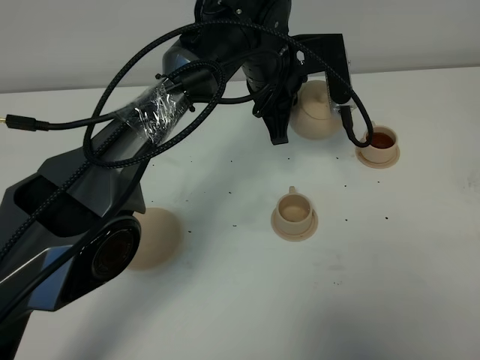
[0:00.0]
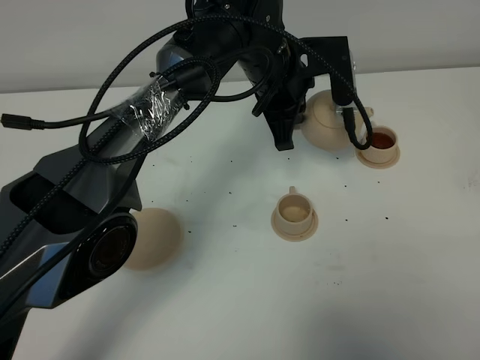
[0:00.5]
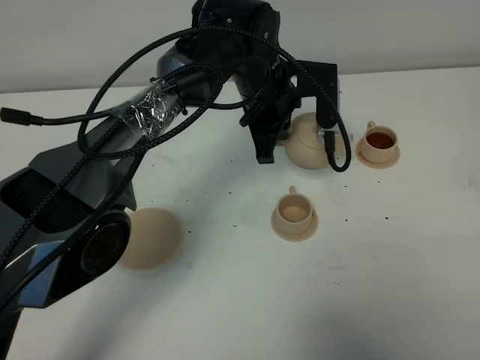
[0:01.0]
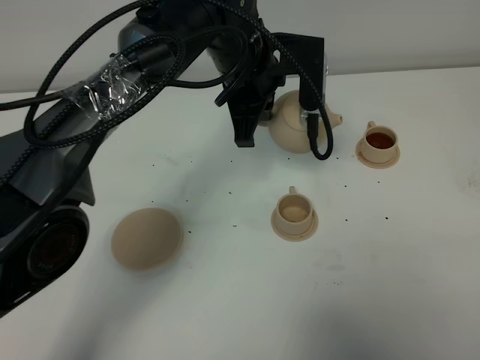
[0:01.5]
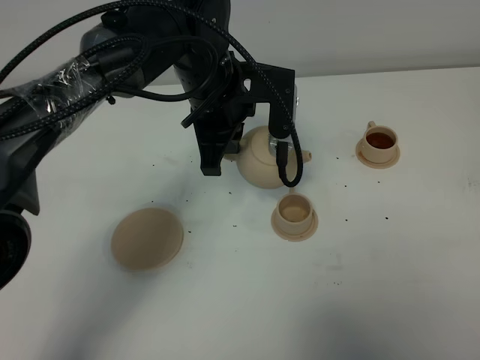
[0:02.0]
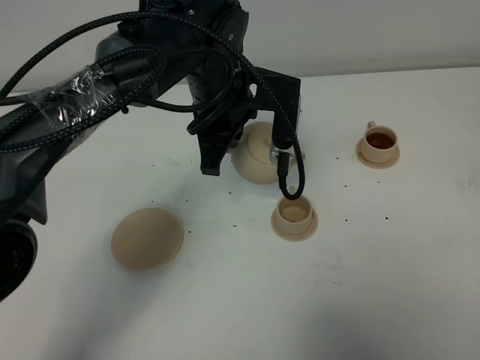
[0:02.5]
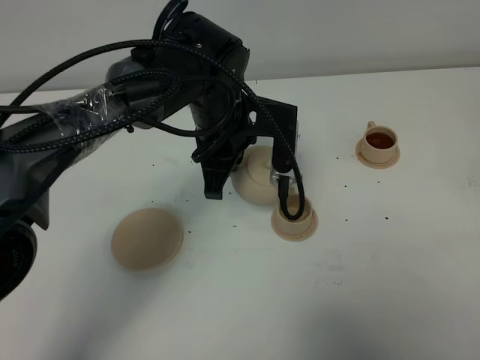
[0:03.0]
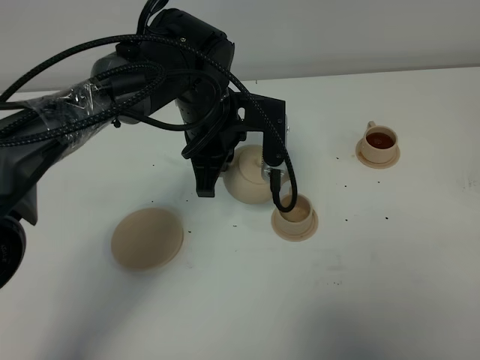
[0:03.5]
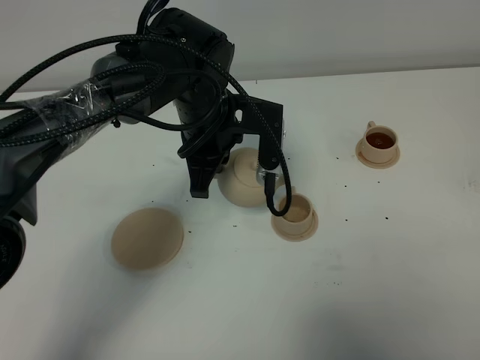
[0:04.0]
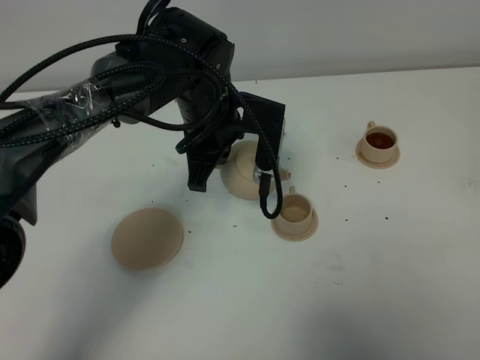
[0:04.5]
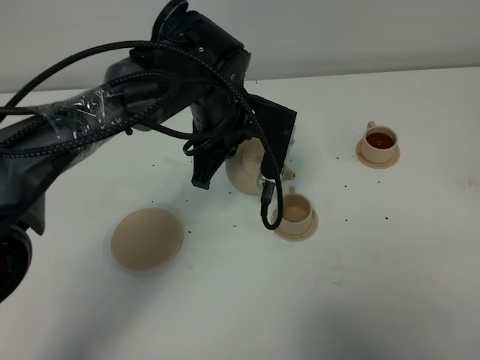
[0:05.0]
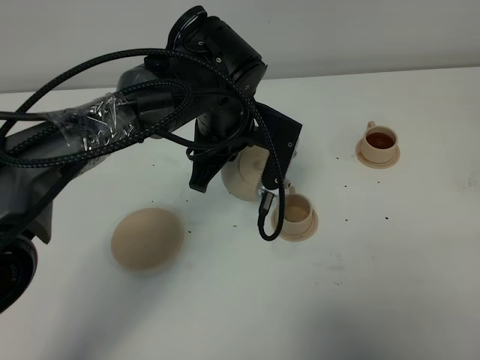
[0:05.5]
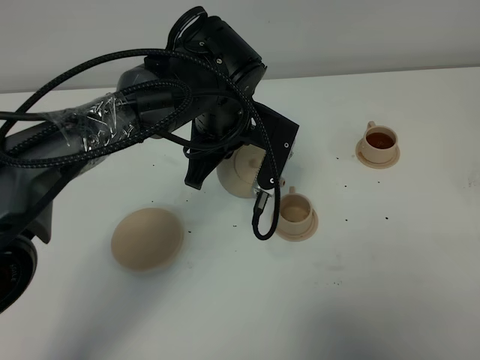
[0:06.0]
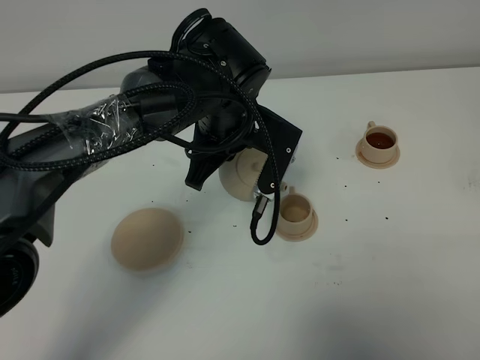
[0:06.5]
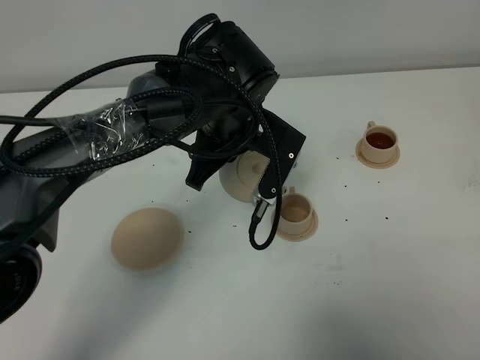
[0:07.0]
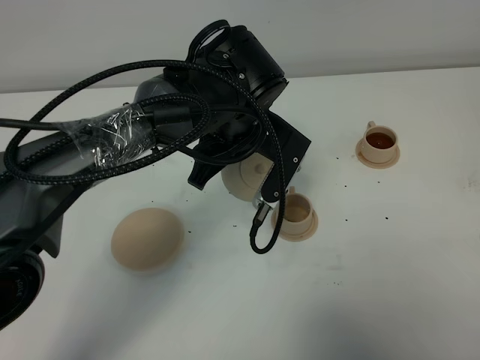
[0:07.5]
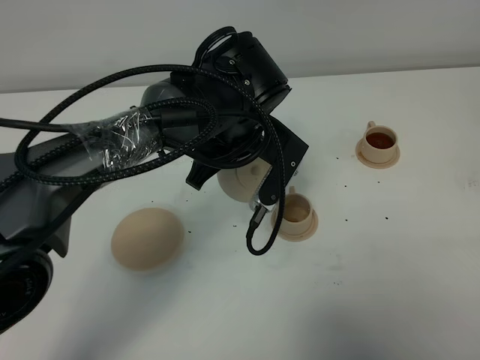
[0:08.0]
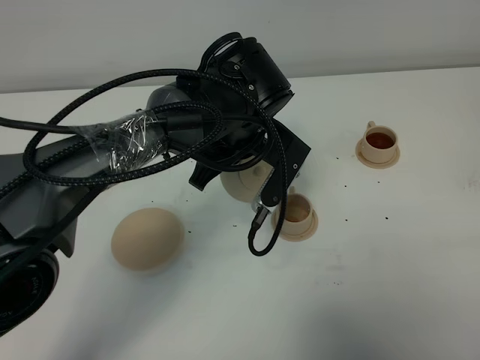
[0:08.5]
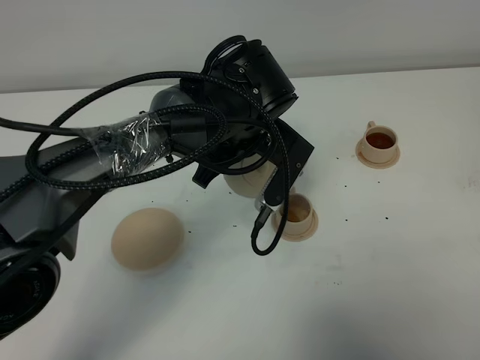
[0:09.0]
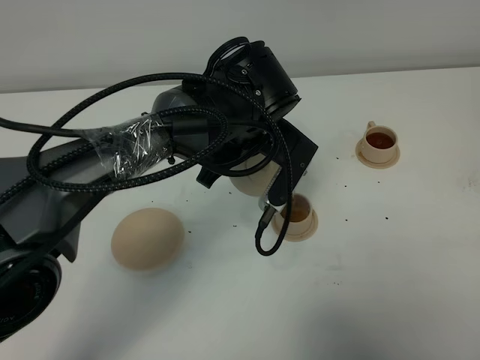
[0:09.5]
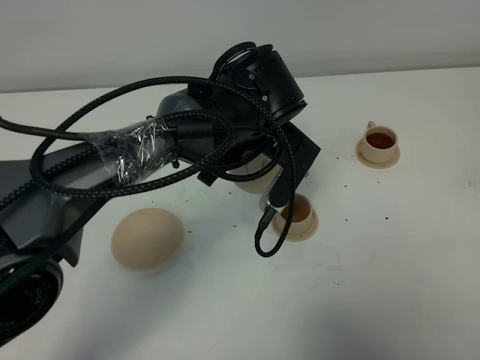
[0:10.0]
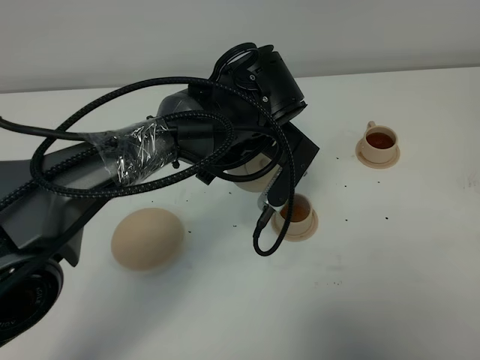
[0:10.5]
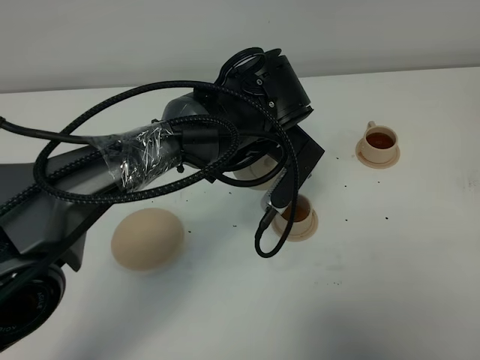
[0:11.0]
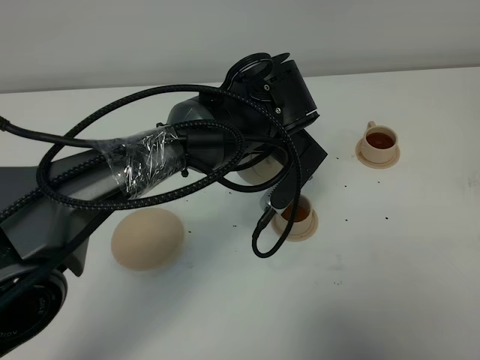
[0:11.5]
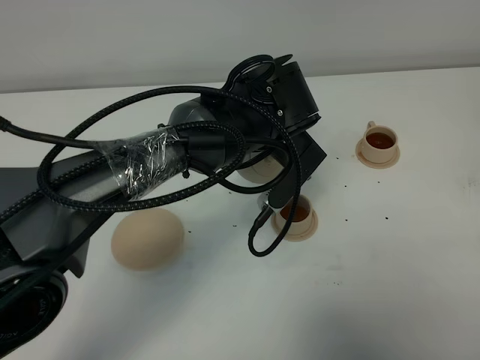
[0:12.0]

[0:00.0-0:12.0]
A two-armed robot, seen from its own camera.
Task of the whole recording: grasp the brown teapot and pour the tea into the two brown teacups one by one, put the brown teapot back in its original place.
0:00.0 to 0:02.0: The left gripper goes approximately 10 cm to the left and backward.
0:02.0 to 0:04.0: The grippers stay close to where they were, moving slightly.
0:06.0 to 0:10.0: The grippers move only a little.
0:10.0 to 0:12.0: The grippers make only small movements.

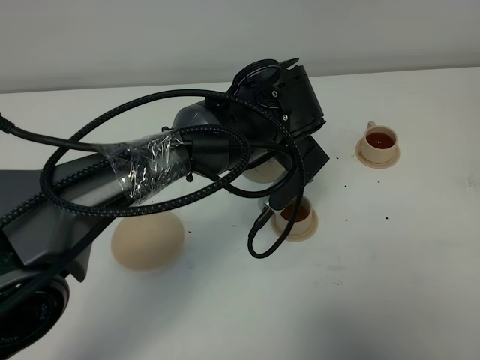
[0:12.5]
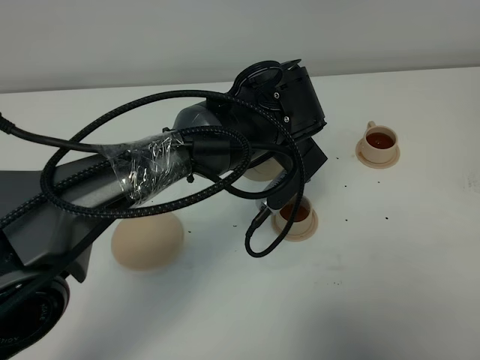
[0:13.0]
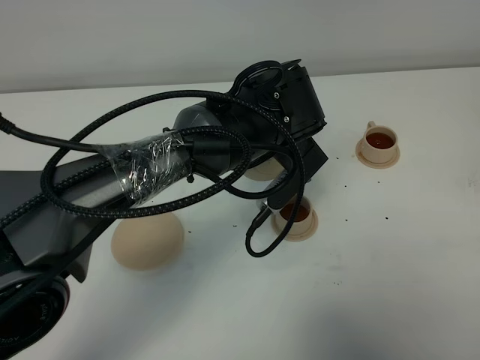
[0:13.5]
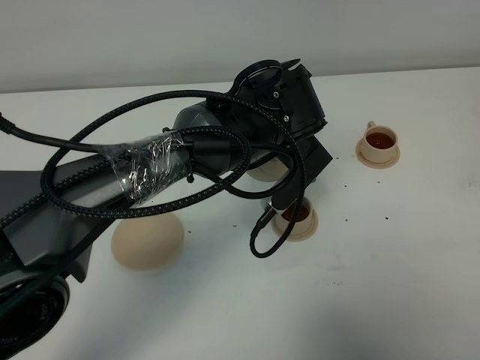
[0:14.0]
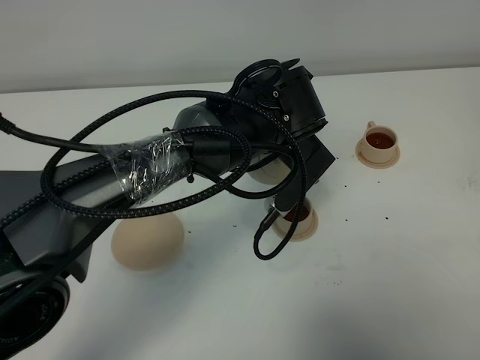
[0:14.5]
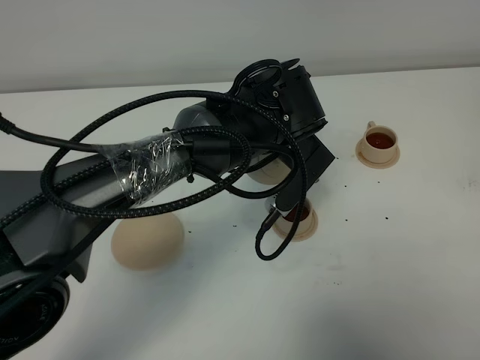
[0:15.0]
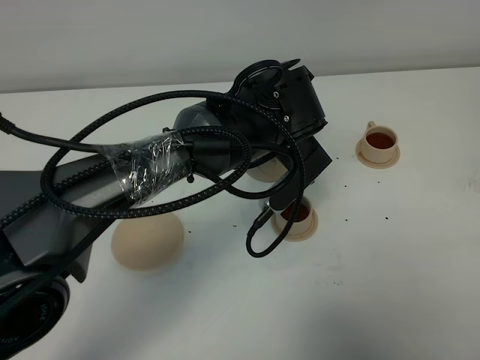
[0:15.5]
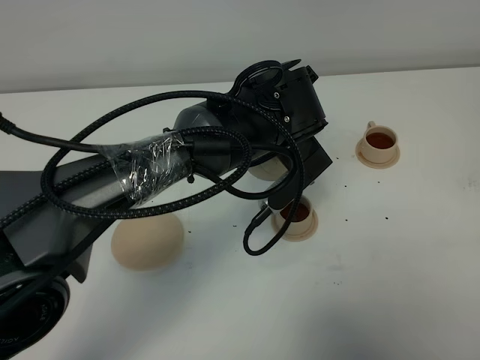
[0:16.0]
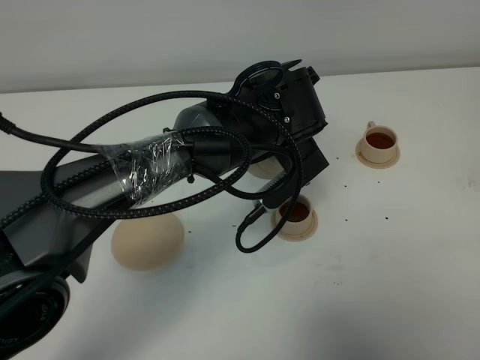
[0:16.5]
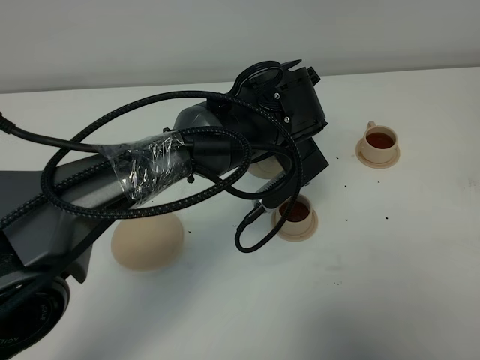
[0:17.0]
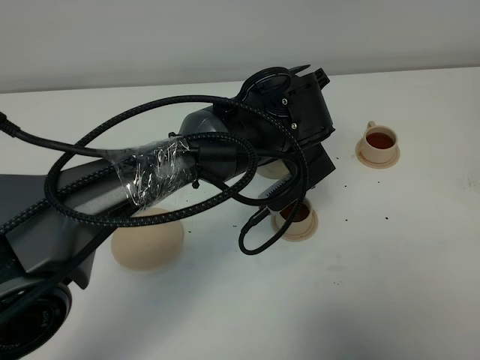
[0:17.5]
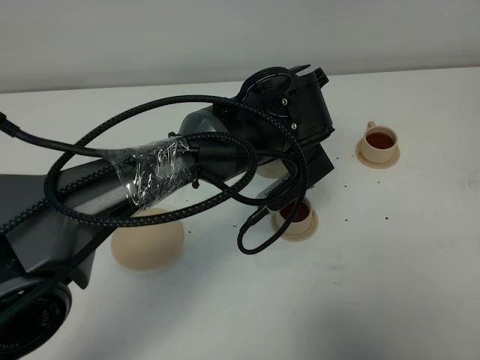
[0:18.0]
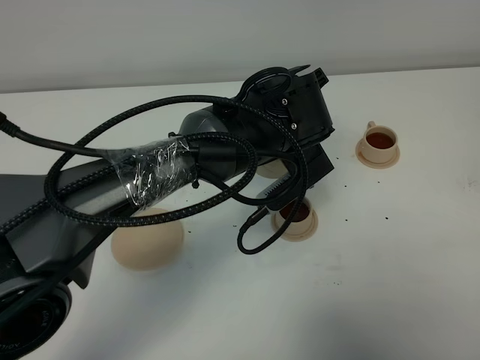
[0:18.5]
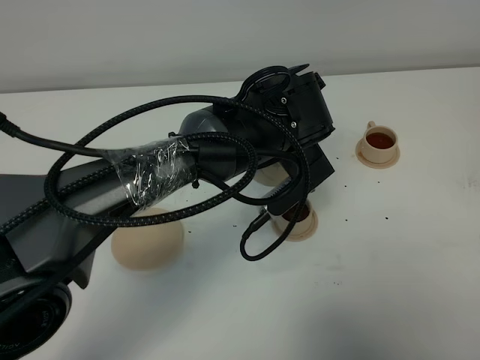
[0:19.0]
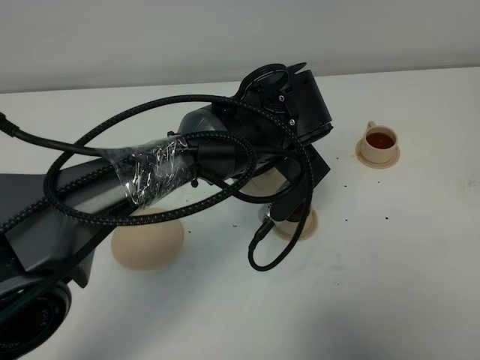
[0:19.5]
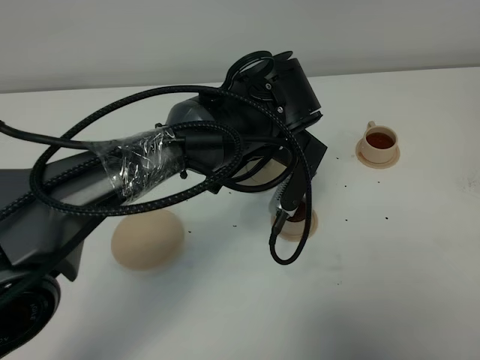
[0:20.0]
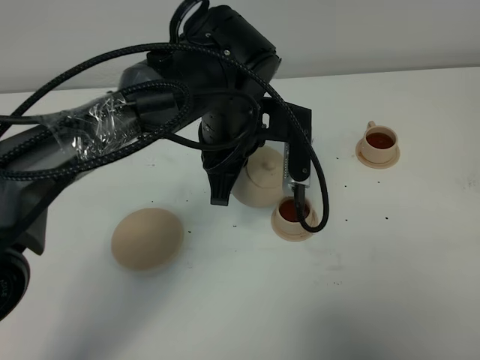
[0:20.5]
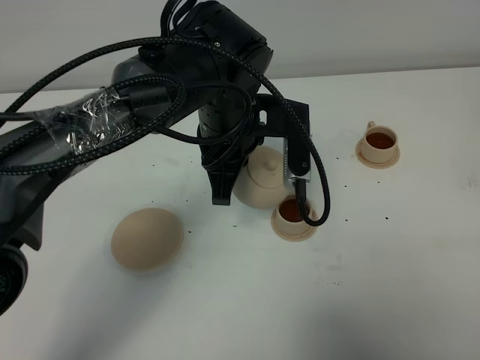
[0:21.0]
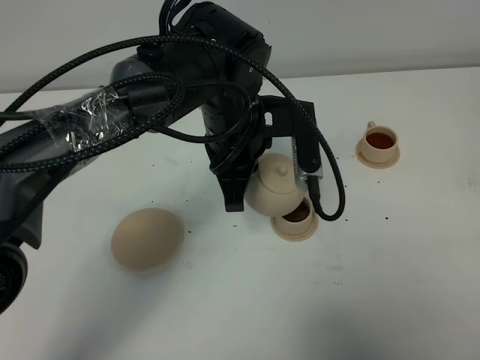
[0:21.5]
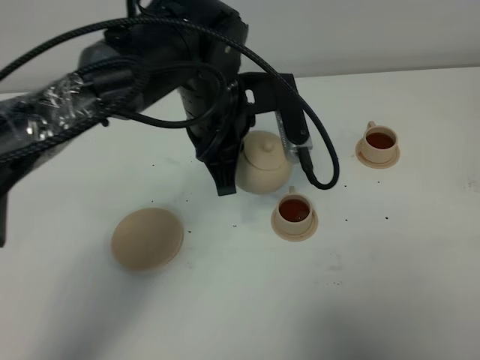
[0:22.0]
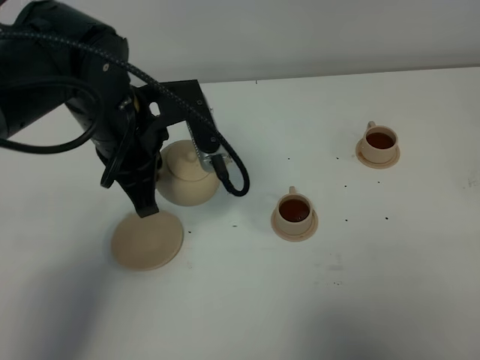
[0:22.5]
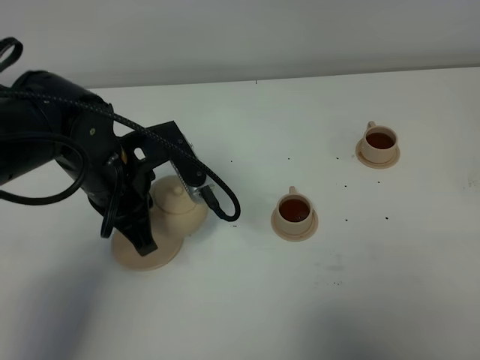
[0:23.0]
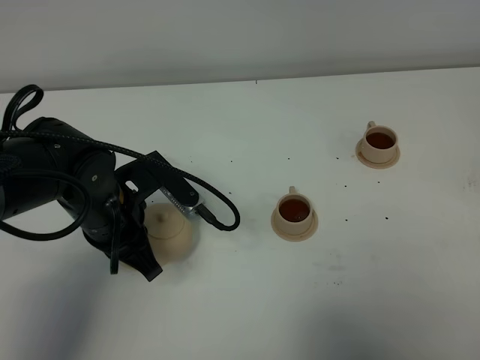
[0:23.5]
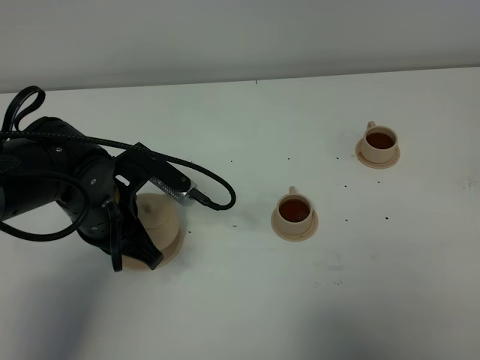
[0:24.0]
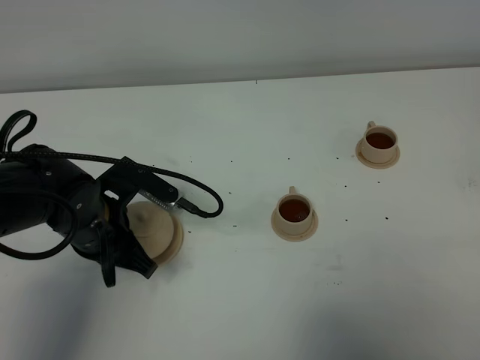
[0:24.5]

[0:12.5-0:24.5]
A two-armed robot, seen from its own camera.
Task of the whole recording: grasp the brown teapot and pour the tea into the two brown teacups one by one, put the brown teapot back in its original place.
Step, 0:12.5 to 0:20.0: Pour tea into the teacup with the left gripper.
0:12.5 to 0:14.5: Neither gripper changes place.
0:14.5 to 0:16.5: The grippers stay close to where they were, moving slightly.
0:16.5 to 0:18.5: The two grippers keep their place.
0:18.5 to 0:20.5: The left gripper goes approximately 5 cm to the left.
0:20.5 to 0:22.5: The left gripper is displaced to the left by approximately 10 cm.
0:22.5 to 0:24.5: The left gripper heads downward and to the left, covering roughly 15 cm.

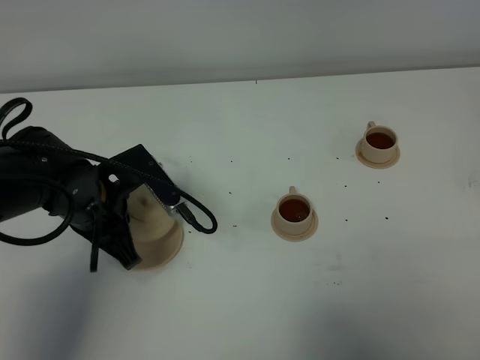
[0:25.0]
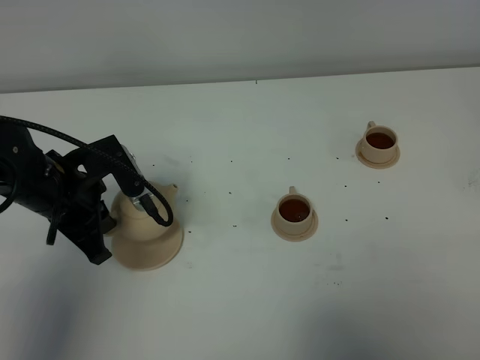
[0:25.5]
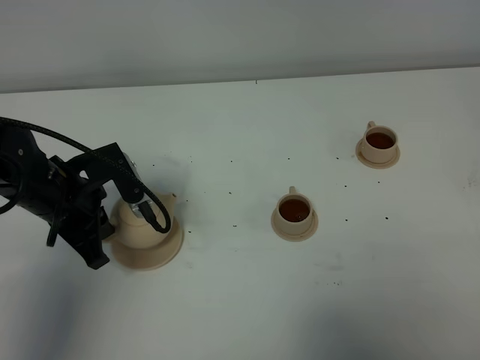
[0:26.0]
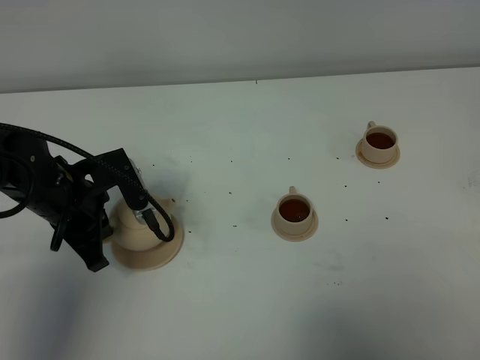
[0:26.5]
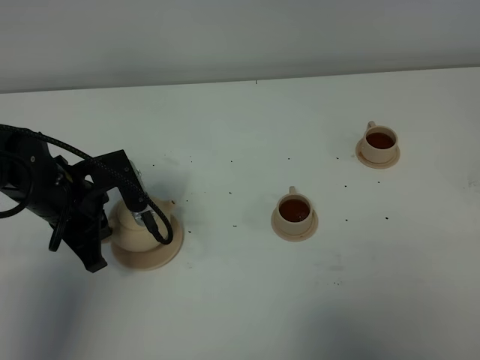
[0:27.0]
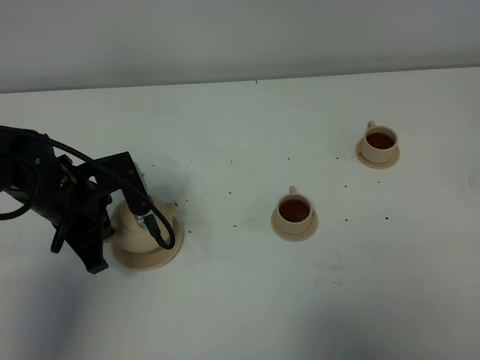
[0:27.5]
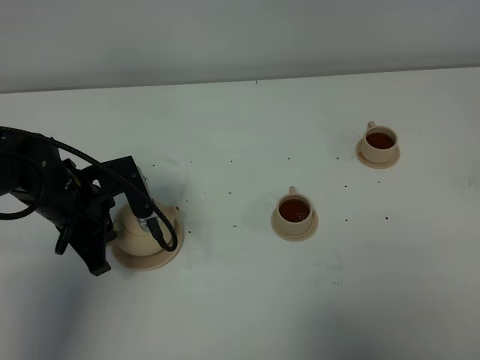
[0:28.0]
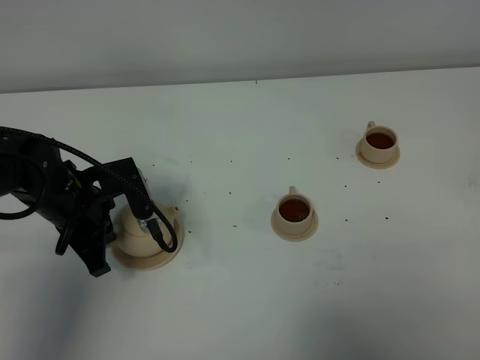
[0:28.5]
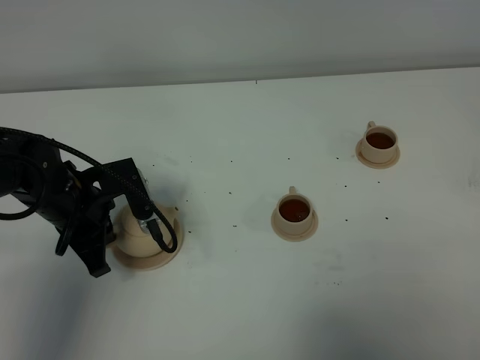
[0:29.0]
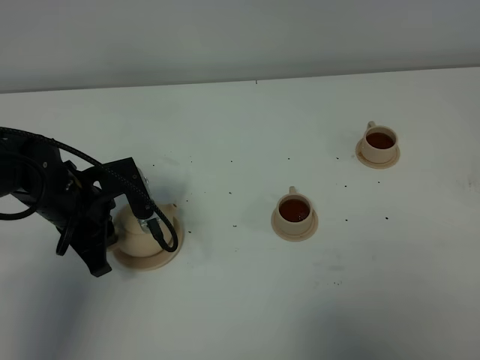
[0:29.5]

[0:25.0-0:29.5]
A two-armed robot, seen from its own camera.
Task of the whole recording: grasp the brown teapot and pour the tea into the two brown teacups one by one, put the brown teapot back in its original place.
0:25.0 to 0:27.0: The grippers stay close to where they were, moving slightly.
0:27.0 to 0:29.5: The two grippers keep their place.
